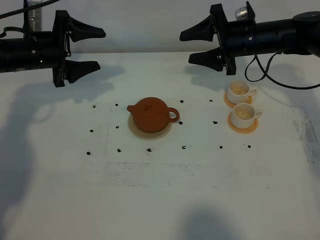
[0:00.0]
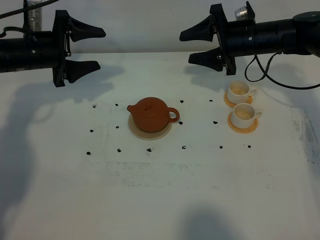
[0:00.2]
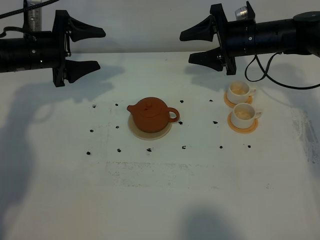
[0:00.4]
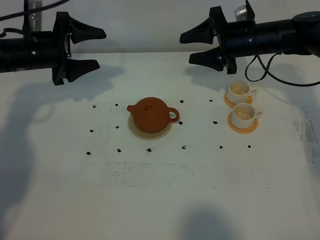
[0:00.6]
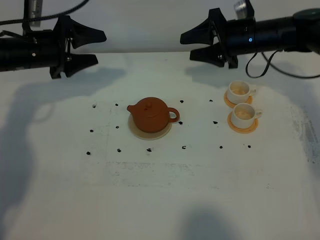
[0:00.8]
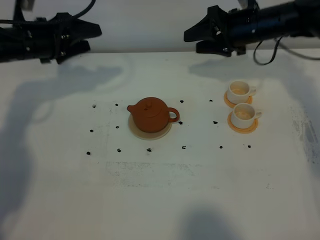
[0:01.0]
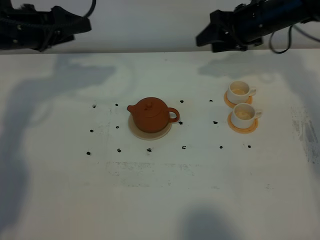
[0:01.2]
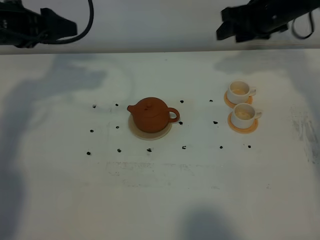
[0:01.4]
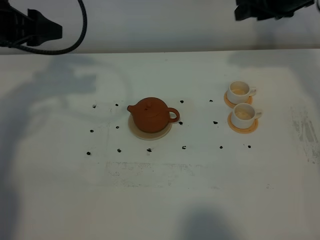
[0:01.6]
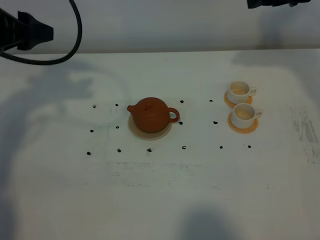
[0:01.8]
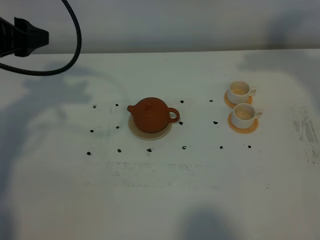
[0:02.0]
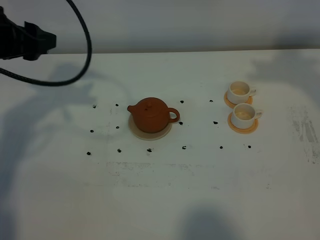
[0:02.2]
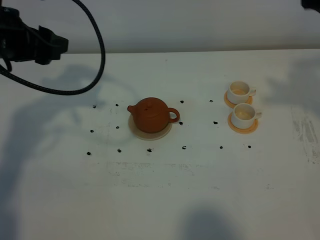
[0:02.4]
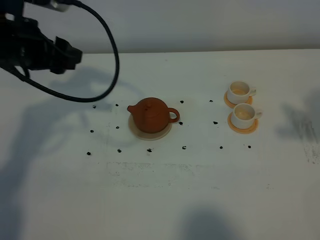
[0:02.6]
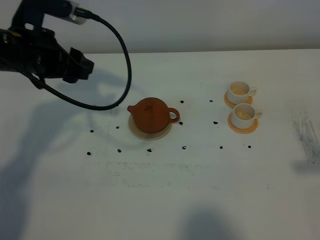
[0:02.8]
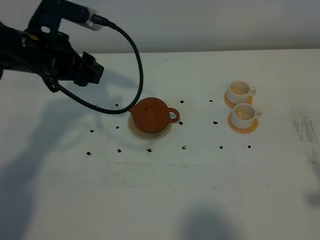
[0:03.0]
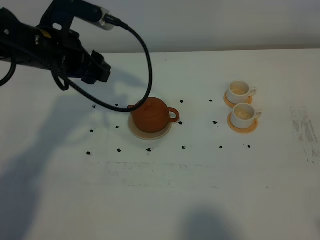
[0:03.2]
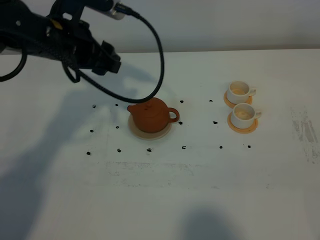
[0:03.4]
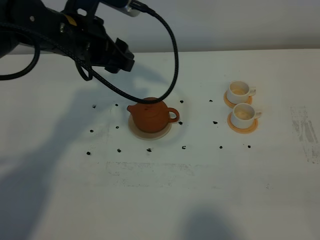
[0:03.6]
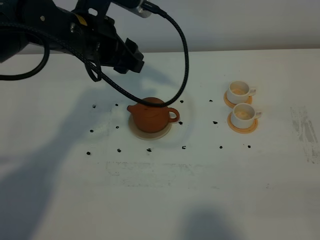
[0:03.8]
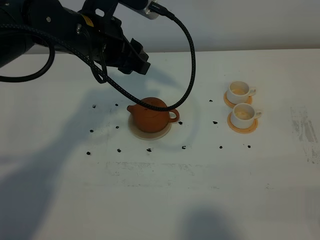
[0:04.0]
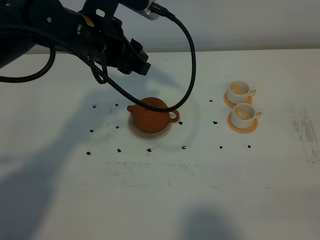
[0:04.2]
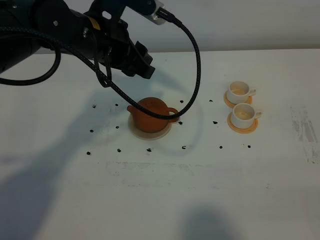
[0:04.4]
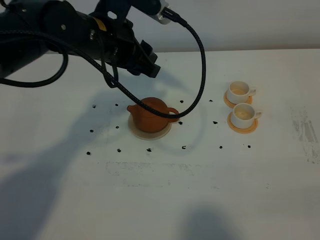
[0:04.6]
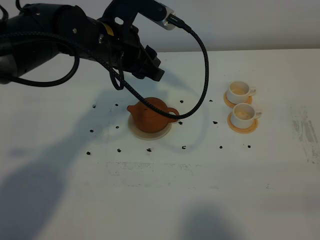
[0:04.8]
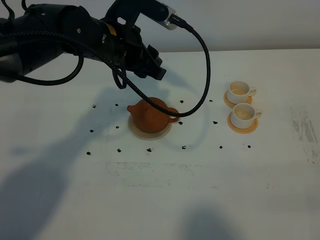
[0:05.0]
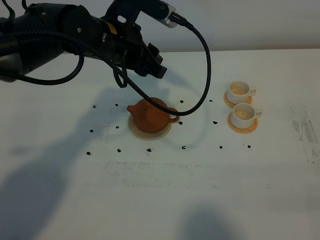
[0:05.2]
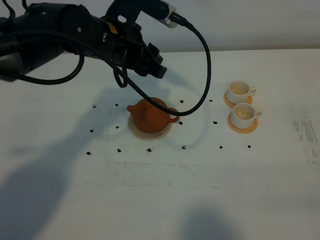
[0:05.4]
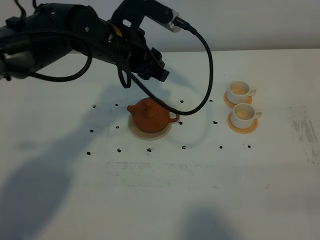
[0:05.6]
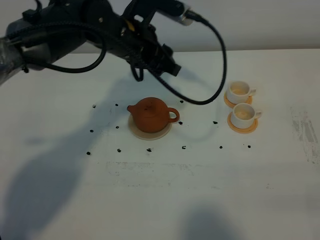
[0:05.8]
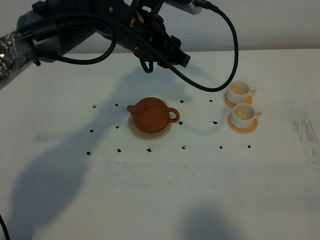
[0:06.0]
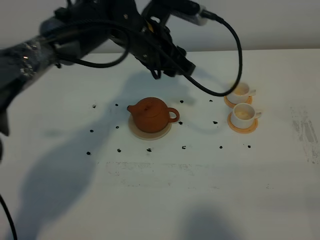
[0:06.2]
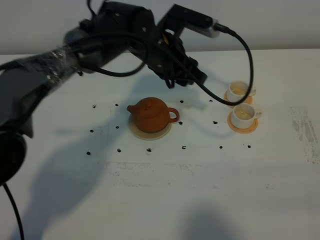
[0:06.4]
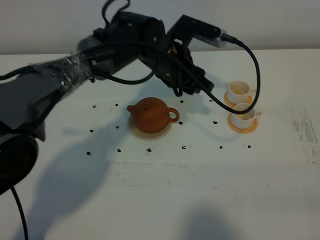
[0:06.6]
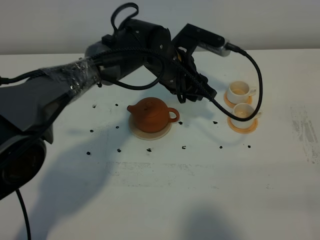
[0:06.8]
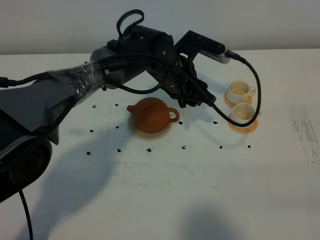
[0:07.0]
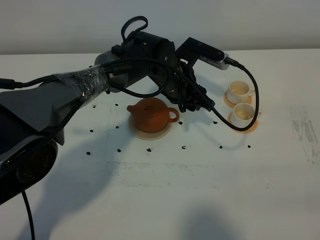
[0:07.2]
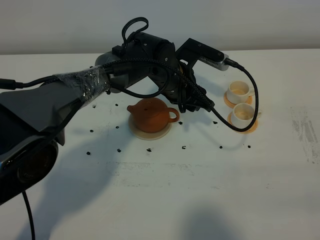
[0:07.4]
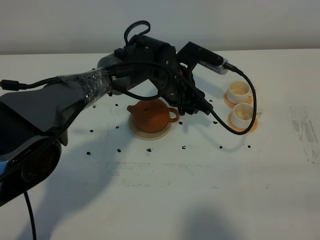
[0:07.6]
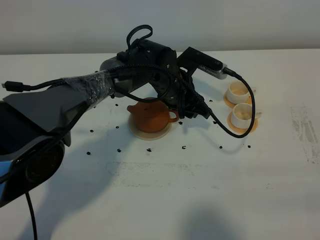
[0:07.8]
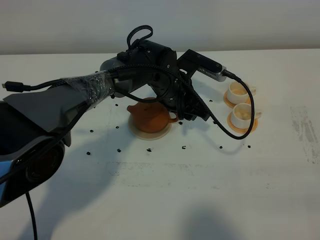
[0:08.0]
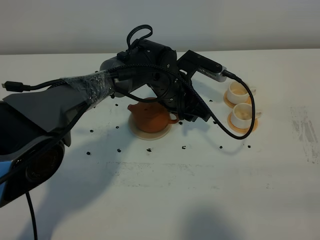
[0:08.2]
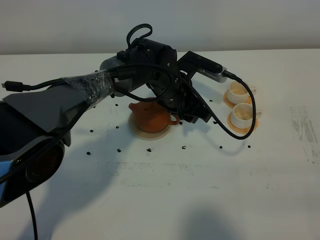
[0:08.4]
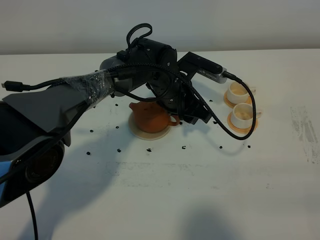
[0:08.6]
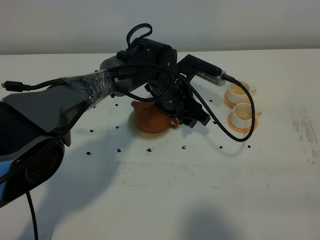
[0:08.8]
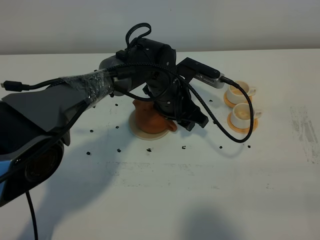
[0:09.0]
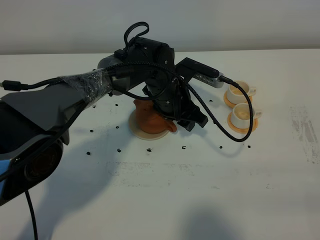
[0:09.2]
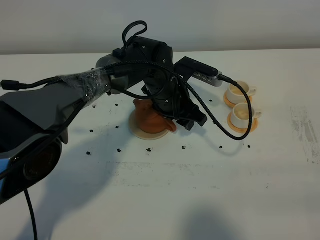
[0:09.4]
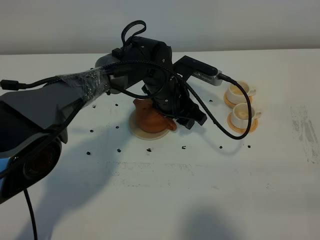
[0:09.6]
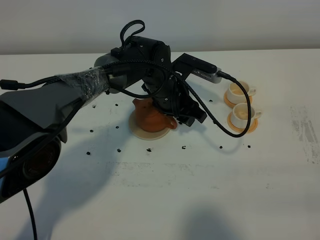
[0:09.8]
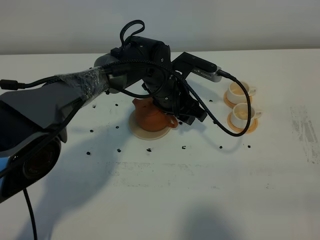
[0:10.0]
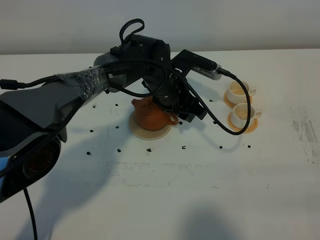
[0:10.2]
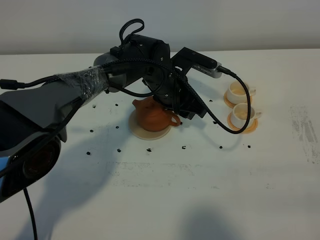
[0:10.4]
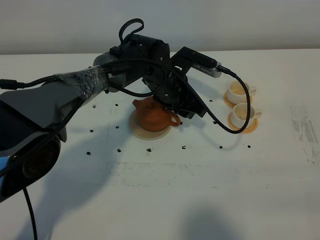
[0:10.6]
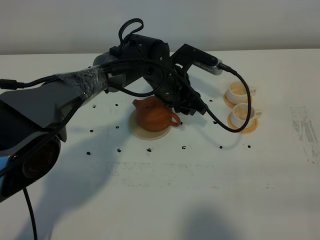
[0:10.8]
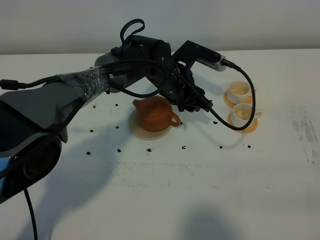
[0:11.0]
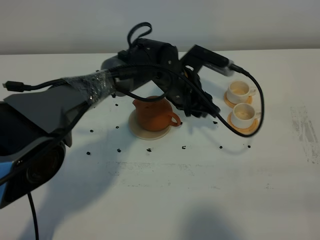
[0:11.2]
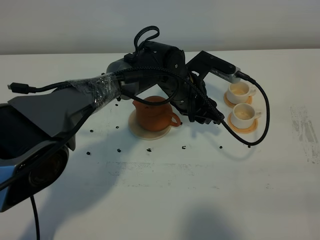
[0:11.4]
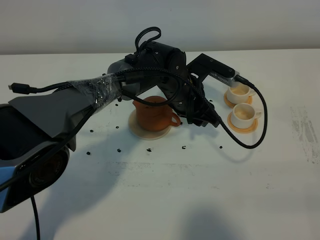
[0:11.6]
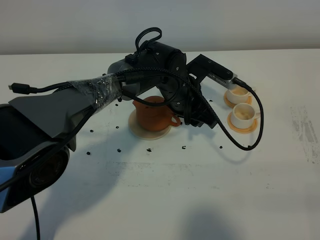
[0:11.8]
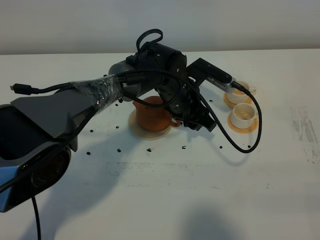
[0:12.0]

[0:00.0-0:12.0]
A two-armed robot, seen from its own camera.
Task of the whole recording: grasp the brown teapot and pour the tea into the two white teacups one by one, put the brown teapot back in its original place.
0:00.0 to 0:01.6: The right gripper is displaced upward and to the right by approximately 15 cm. The left gripper moves upward and backward, roughly 15 cm.
0:01.6 to 0:03.0: The right gripper moves backward, approximately 40 cm. The left gripper is displaced to the right by about 10 cm.
0:03.0 to 0:04.4: The left gripper moves to the right, approximately 10 cm. Meanwhile the right gripper goes about 15 cm downward and backward.
0:04.4 to 0:06.0: The left gripper shifts approximately 5 cm to the right.
0:06.0 to 0:07.6: The left gripper heads downward and to the right, covering roughly 15 cm.
0:07.6 to 0:12.0: The grippers make only small movements.

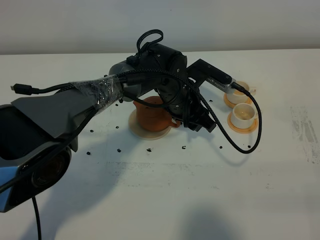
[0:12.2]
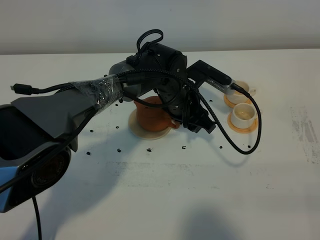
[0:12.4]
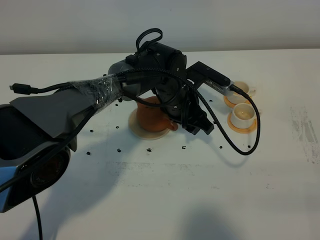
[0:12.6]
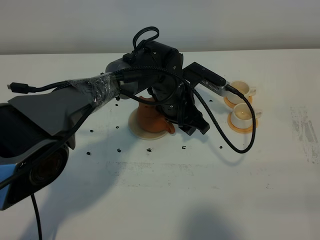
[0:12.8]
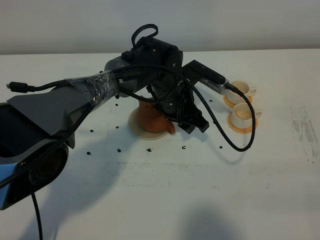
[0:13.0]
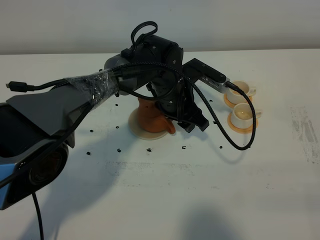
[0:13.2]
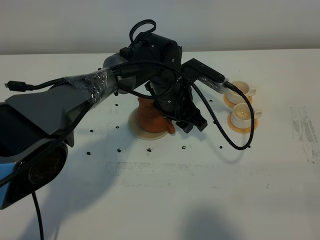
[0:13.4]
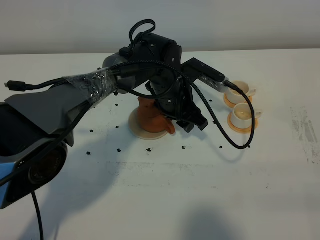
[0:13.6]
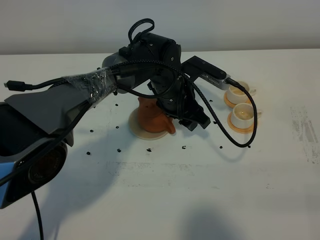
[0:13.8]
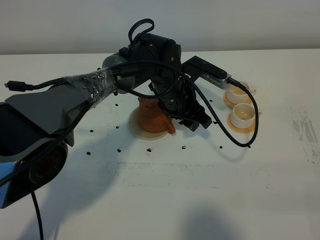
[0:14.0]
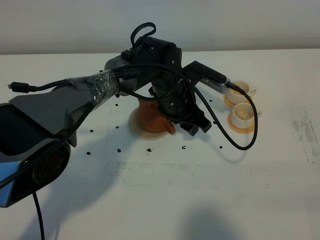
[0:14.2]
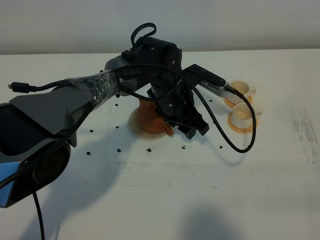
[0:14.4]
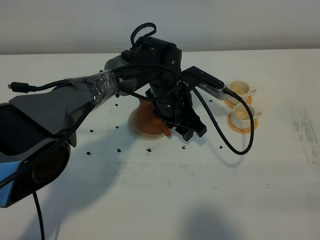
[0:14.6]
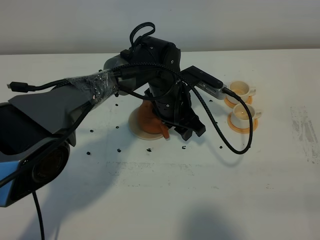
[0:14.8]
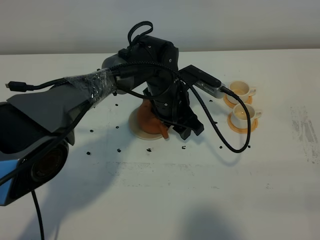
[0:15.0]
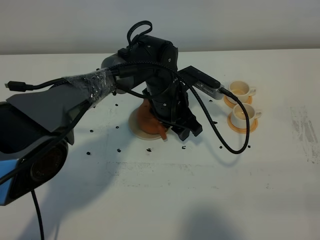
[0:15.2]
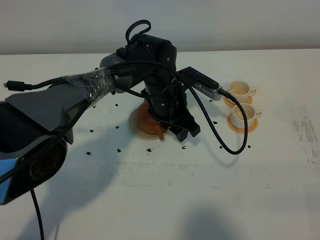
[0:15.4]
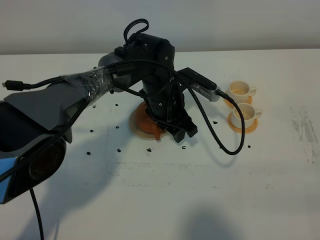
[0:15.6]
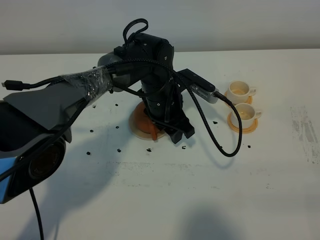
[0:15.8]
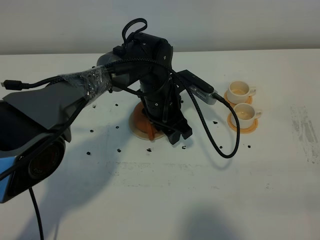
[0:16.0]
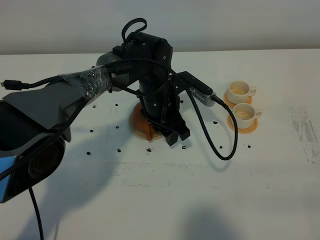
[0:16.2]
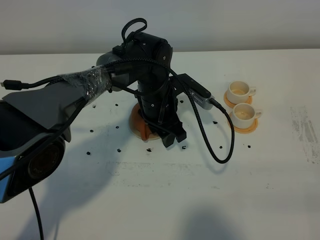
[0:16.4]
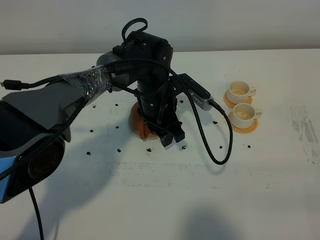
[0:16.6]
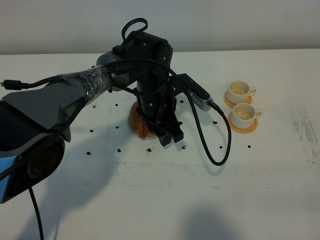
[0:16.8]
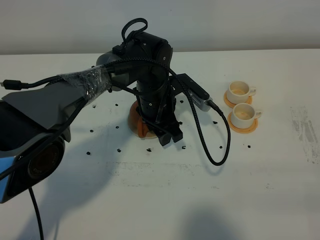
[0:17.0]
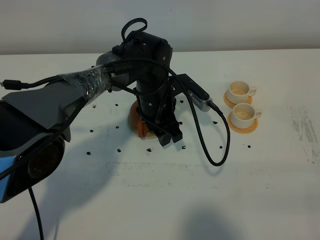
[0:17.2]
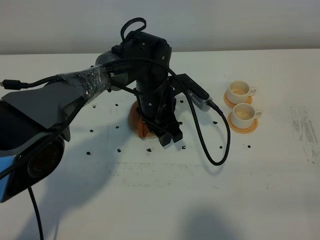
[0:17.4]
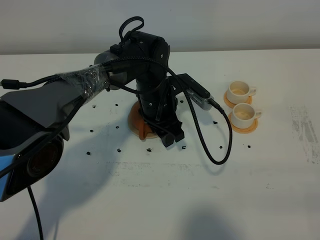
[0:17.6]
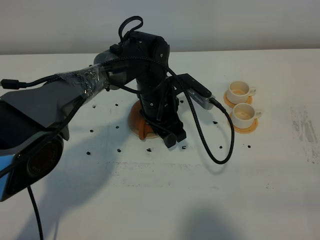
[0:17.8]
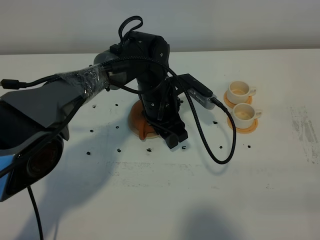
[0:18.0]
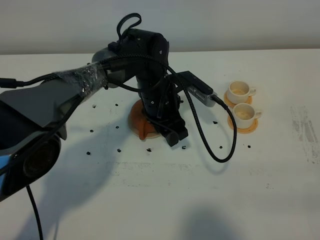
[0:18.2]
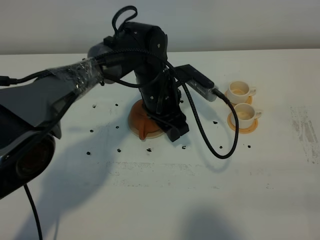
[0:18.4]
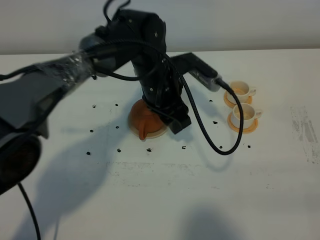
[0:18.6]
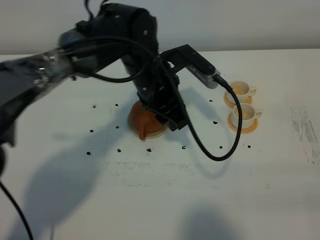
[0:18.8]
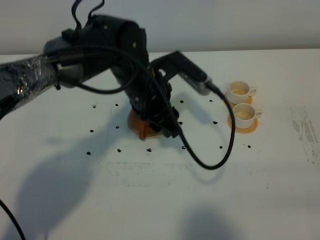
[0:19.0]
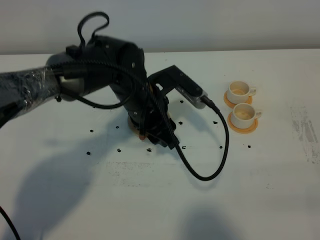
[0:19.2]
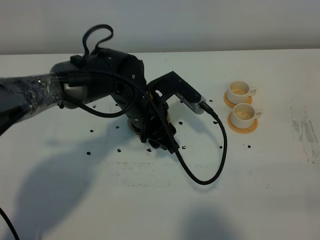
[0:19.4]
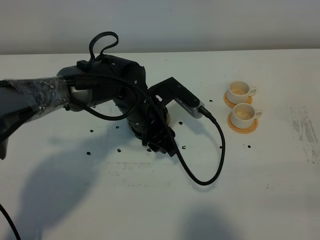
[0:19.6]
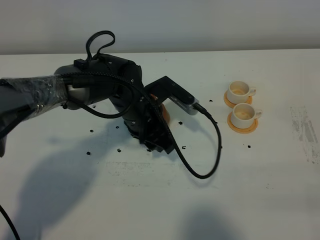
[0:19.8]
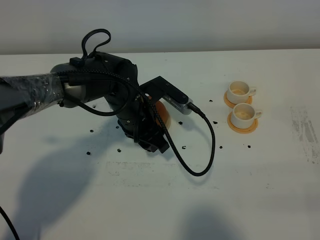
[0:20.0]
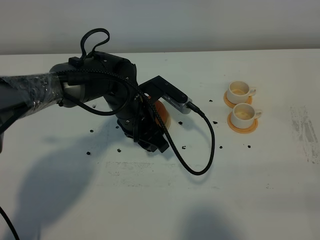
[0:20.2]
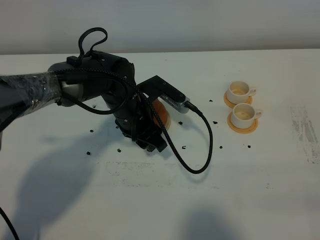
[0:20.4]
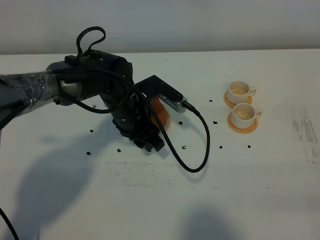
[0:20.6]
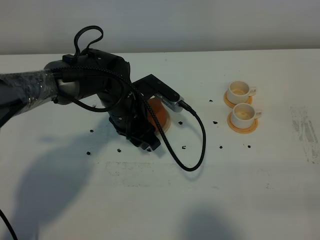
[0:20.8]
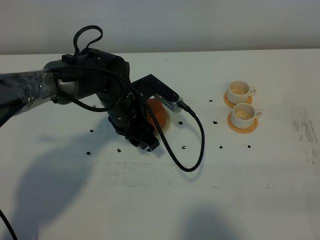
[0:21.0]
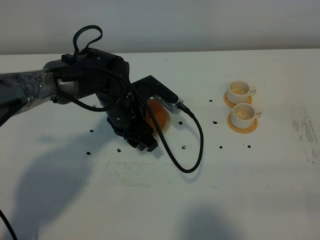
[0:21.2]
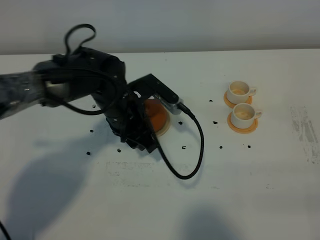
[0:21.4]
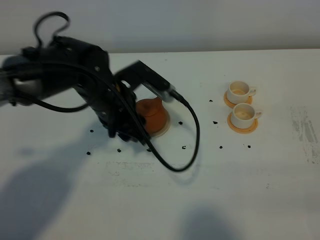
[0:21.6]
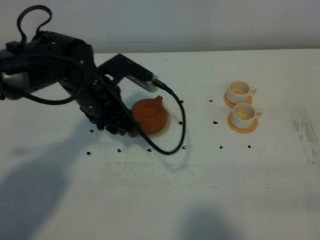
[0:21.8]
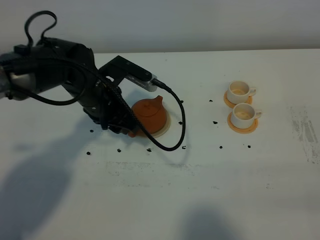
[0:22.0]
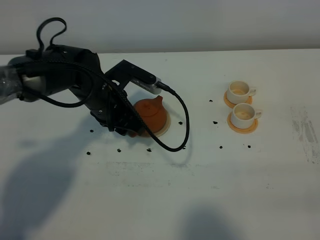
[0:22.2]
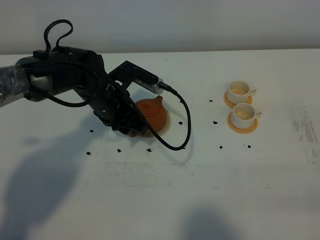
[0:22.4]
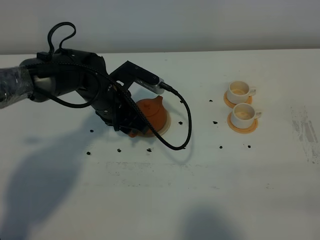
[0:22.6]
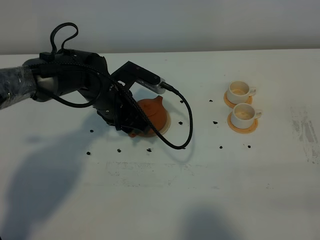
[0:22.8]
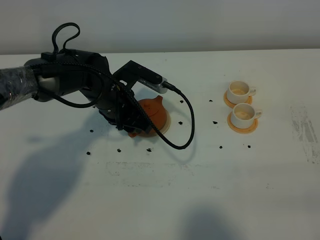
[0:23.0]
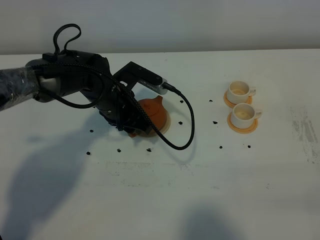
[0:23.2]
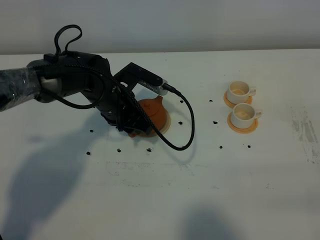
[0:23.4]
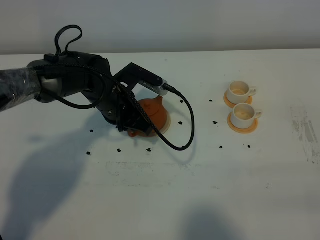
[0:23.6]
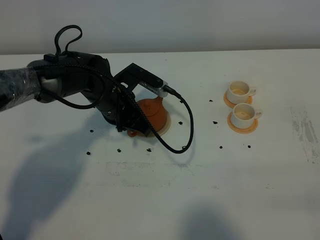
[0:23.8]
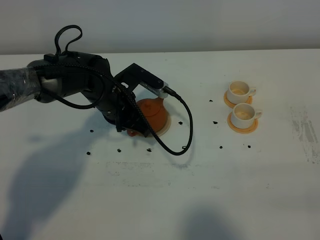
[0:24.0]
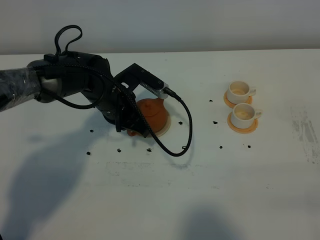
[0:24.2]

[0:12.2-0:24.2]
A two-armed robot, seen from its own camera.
Task of the whole recording: grasp the brown teapot and pour the tea into the two white teacups one by one, put the brown teapot back in its original place.
0:12.2 to 0:15.2: The grippers make only small movements.
0:15.2 to 0:18.2: The grippers stay close to where they were, moving slightly.
0:18.2 to 0:19.8: The left gripper ends up approximately 5 cm from where it was.
0:19.8 to 0:21.2: There are only small adjustments of the grippers.
0:22.6 to 0:24.2: The left gripper closes up.
